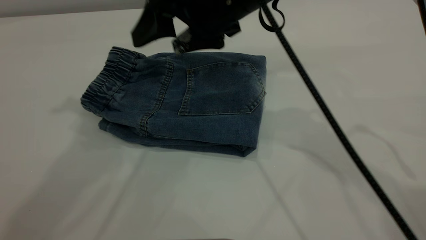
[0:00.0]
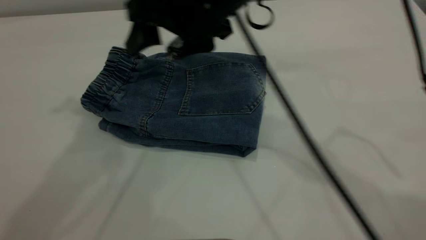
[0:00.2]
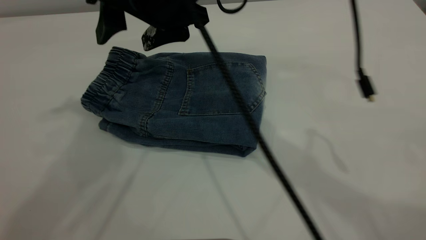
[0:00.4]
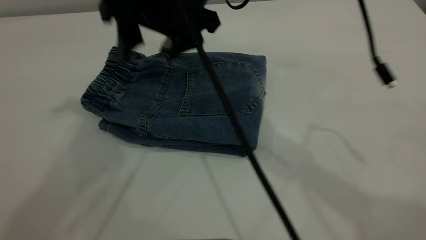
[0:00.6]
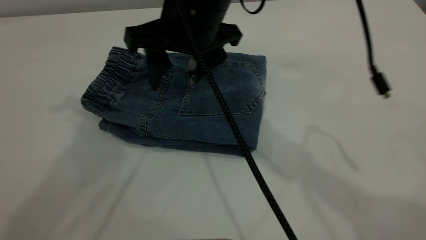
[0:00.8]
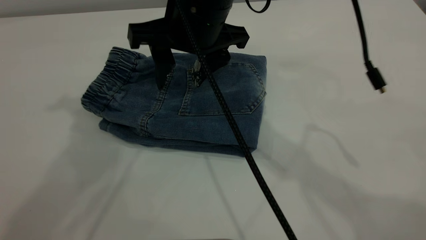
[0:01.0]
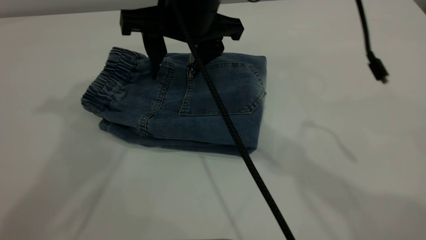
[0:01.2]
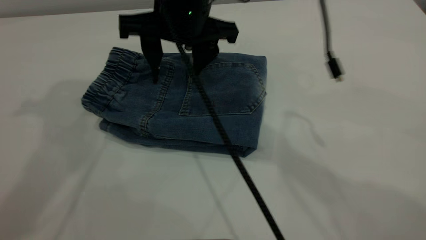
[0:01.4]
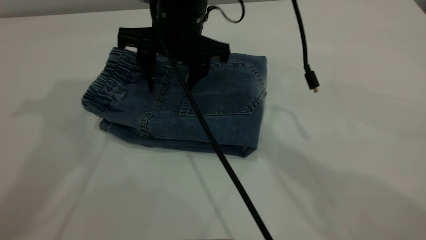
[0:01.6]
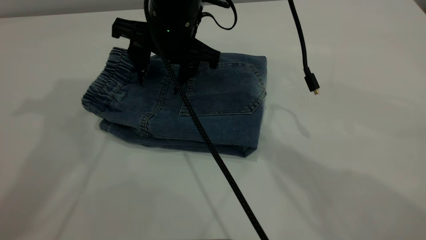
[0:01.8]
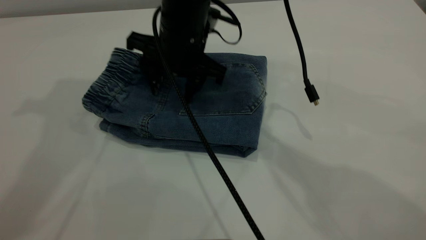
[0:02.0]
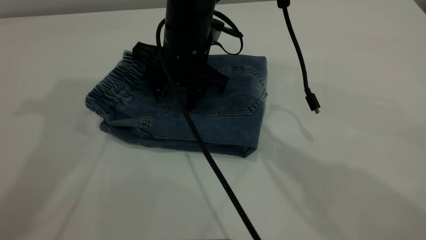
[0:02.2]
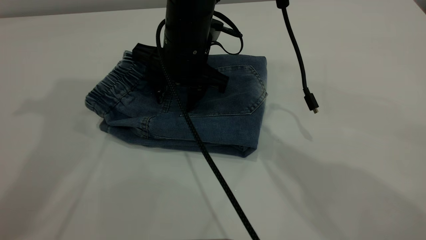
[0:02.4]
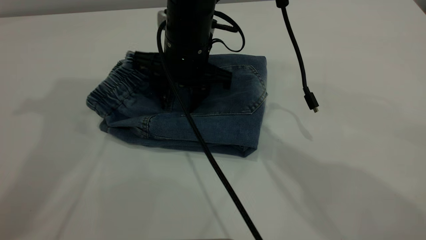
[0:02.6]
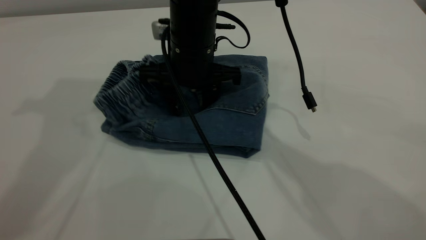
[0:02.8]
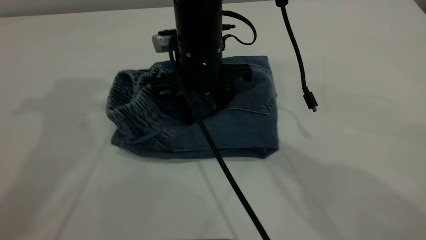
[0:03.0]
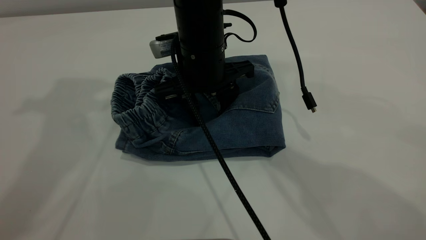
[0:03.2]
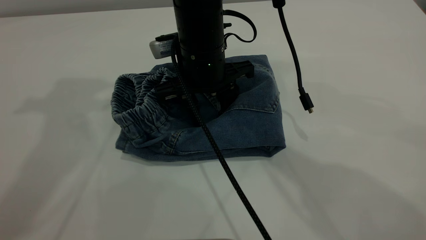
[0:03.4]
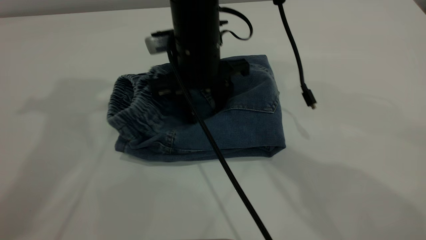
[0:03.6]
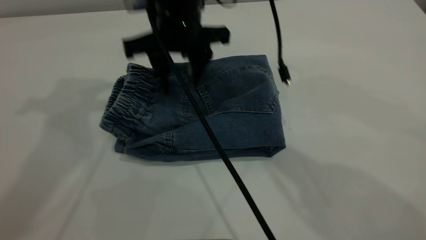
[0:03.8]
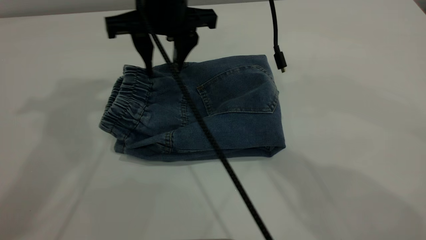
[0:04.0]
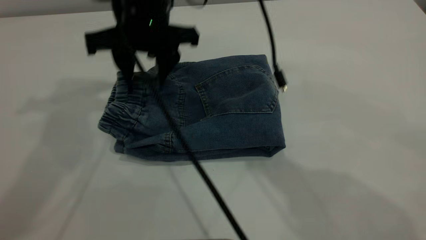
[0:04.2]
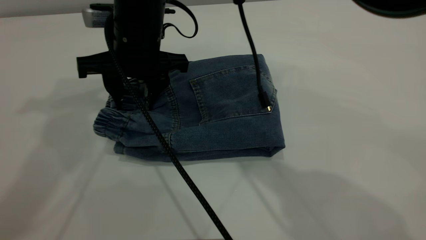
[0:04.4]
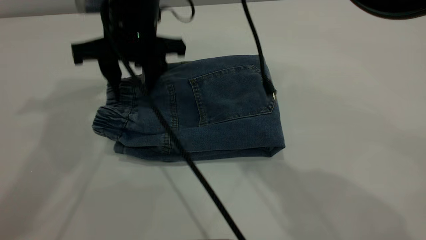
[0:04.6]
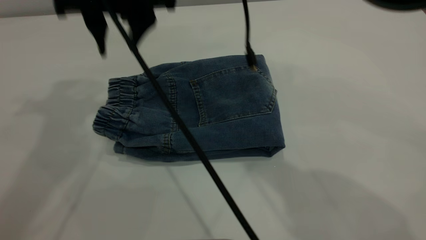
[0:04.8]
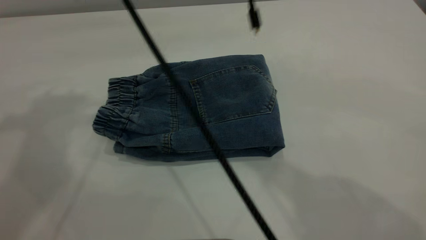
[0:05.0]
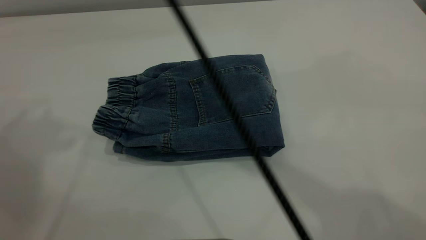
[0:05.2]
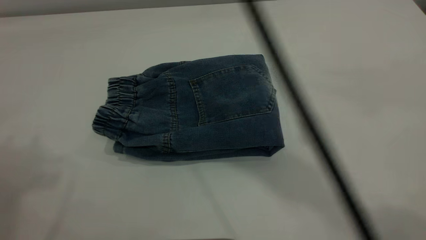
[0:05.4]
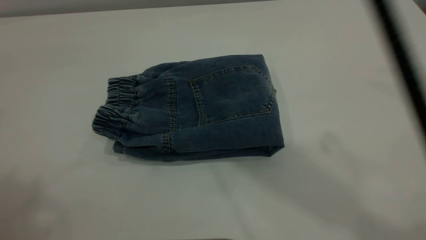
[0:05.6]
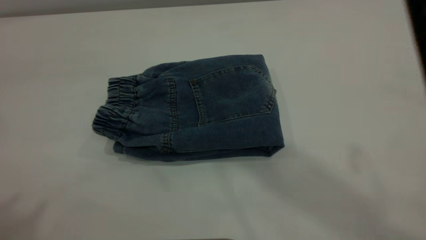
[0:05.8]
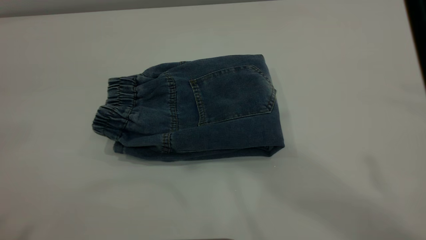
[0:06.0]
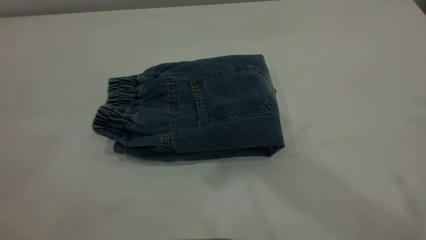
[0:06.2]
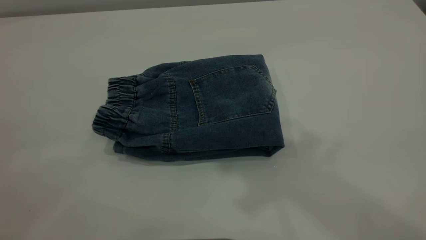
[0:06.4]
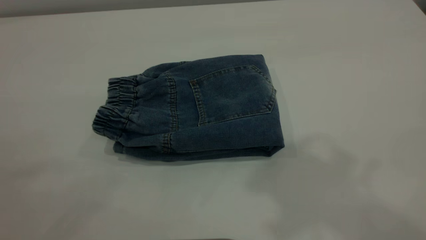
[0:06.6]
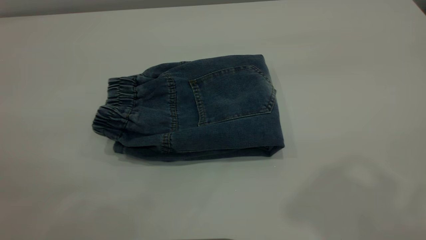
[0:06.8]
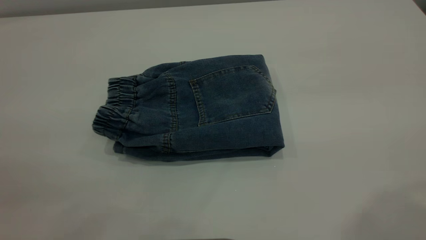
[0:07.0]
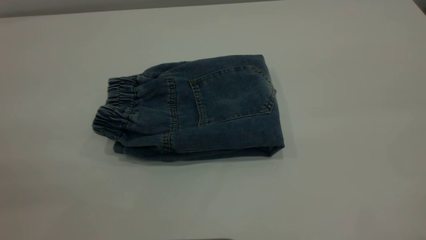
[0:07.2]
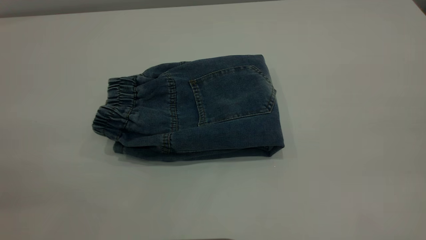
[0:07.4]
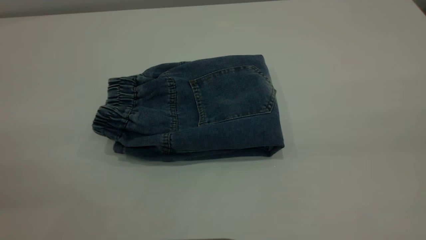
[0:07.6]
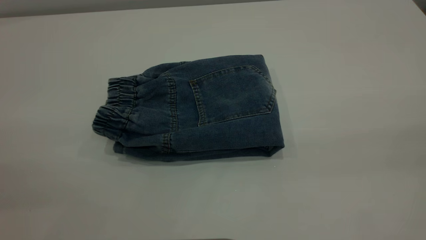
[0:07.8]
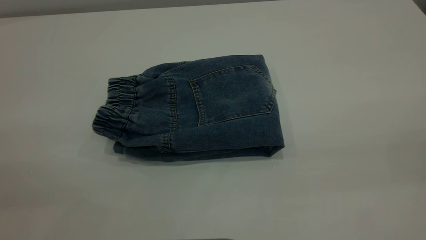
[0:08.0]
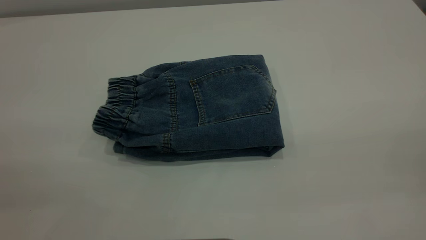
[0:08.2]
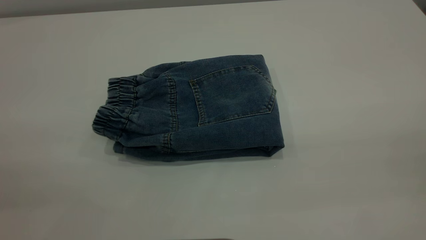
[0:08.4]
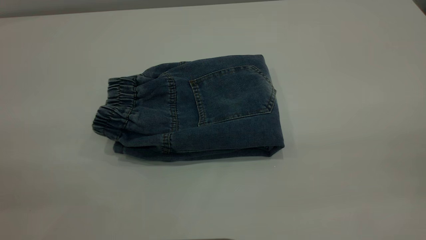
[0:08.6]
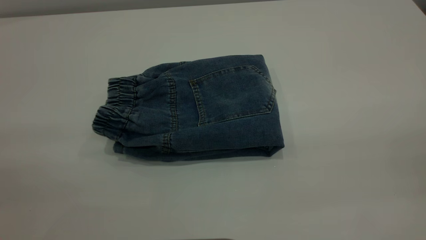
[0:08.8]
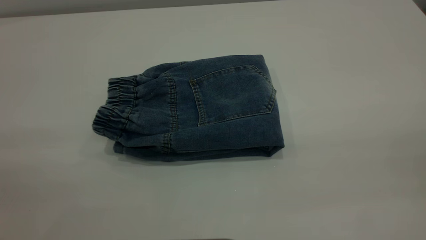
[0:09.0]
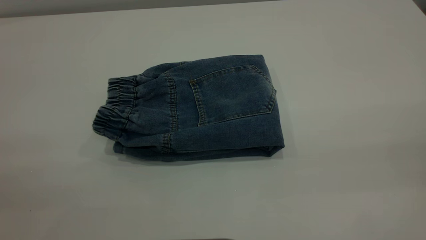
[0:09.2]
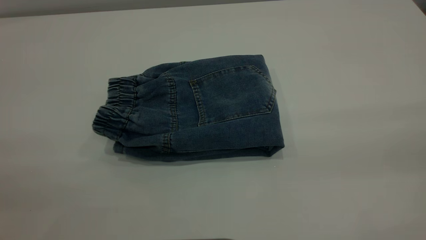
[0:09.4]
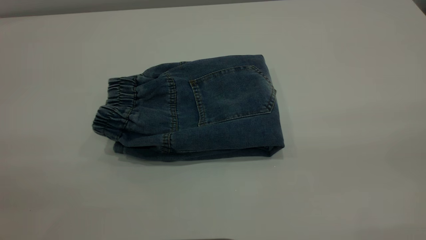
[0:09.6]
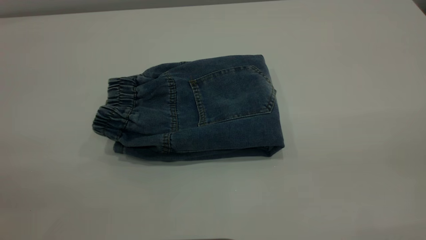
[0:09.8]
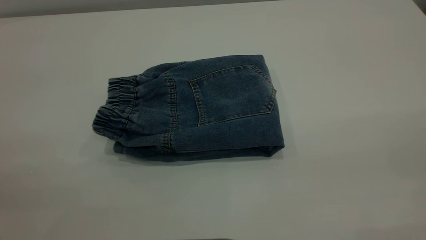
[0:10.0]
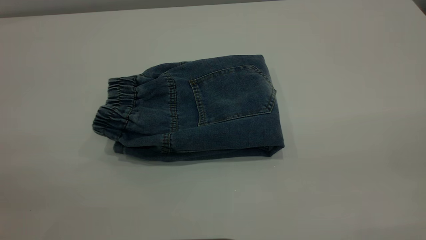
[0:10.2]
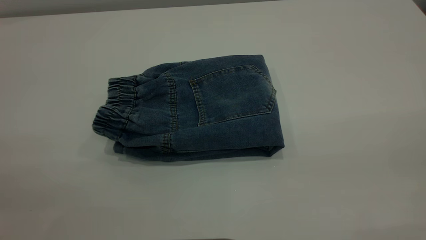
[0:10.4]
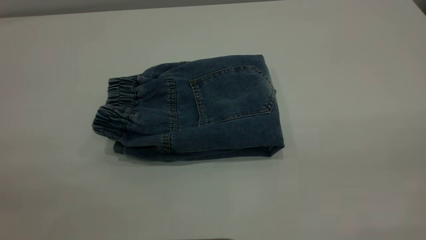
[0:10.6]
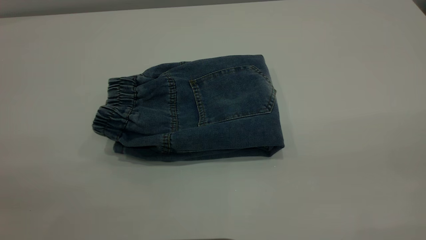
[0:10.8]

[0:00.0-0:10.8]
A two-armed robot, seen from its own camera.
0:00.0 to 0:01.6: The two grippers go some 5 cm to the left.
0:01.6 to 0:03.0: The right gripper shifts by approximately 5 cm.
0:03.0 to 0:04.6: The right gripper goes some 10 cm to the left and upward.
0:04.6 to 0:06.2: The right gripper heads upward and to the right, covering roughly 35 cm. Meanwhile the left gripper shifts some 30 cm backward.
